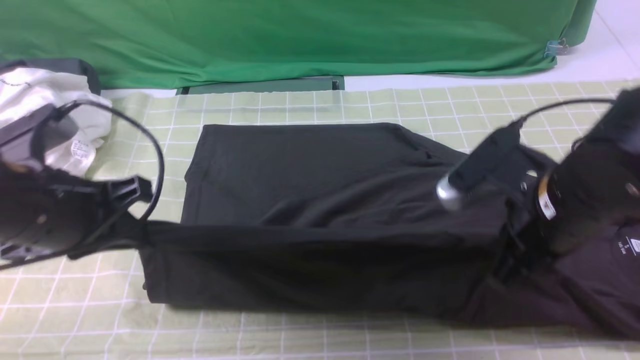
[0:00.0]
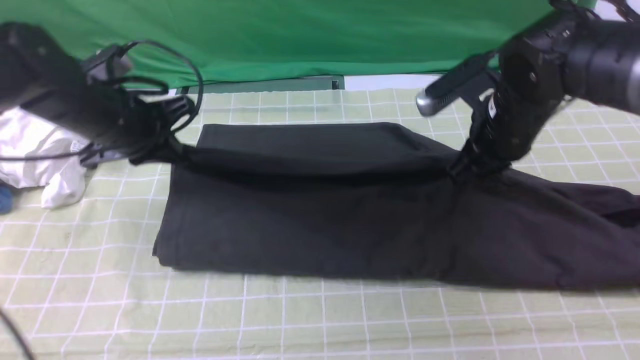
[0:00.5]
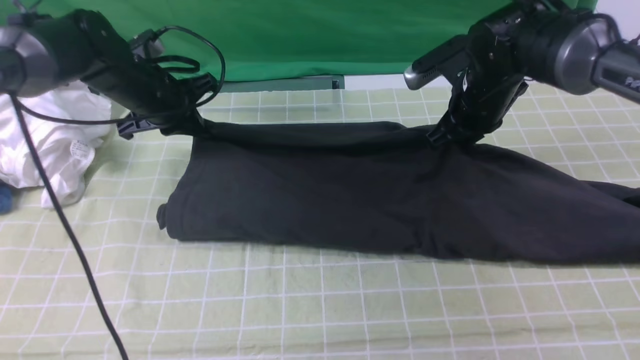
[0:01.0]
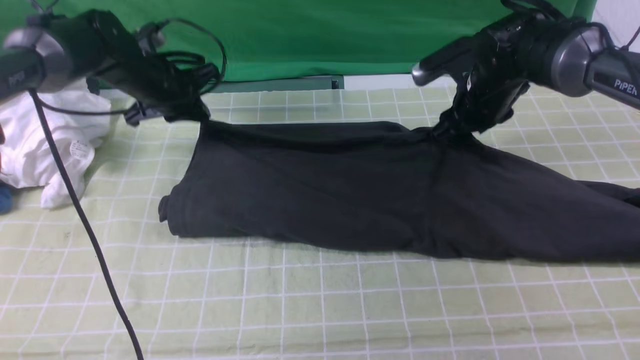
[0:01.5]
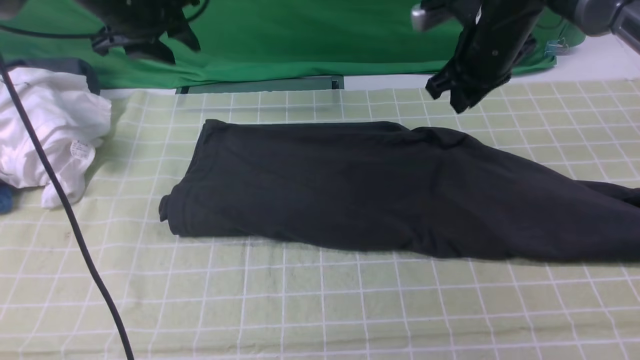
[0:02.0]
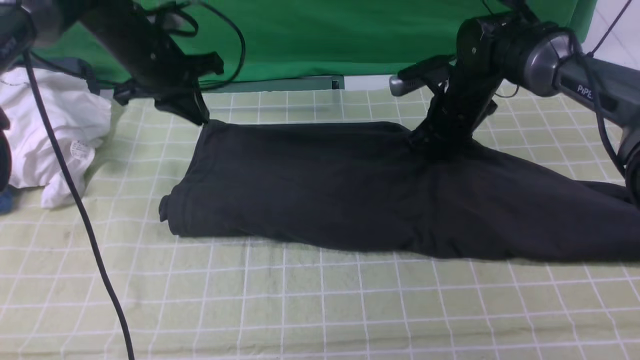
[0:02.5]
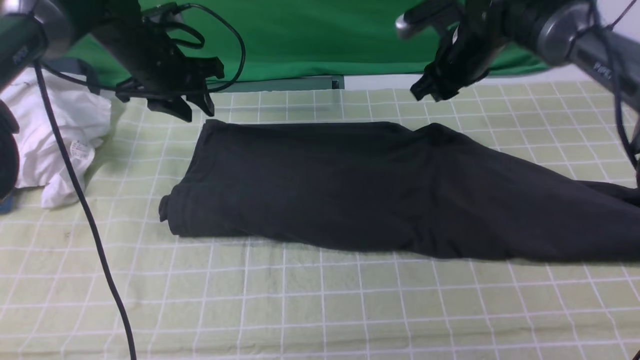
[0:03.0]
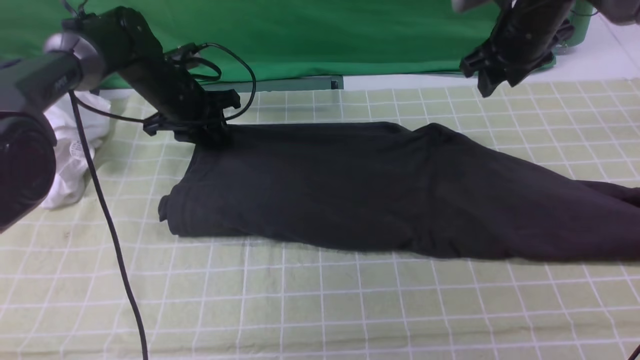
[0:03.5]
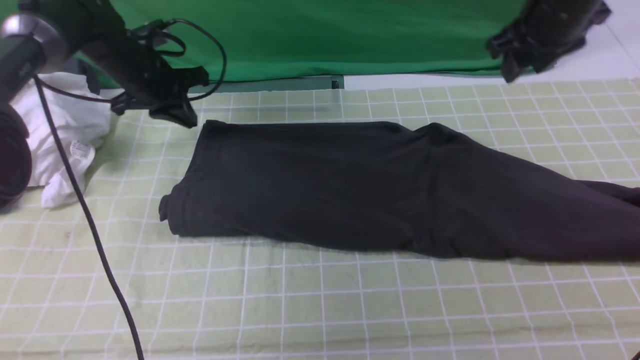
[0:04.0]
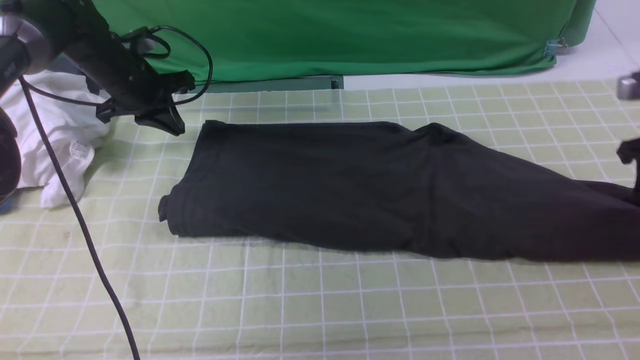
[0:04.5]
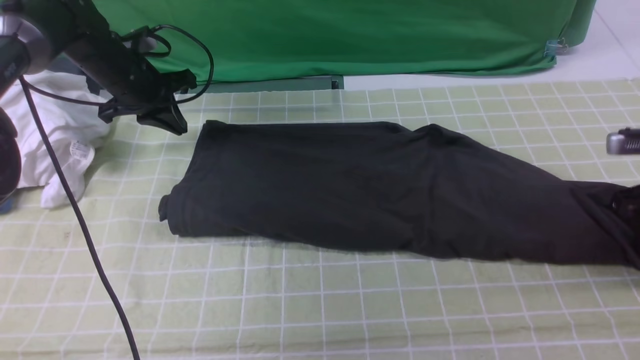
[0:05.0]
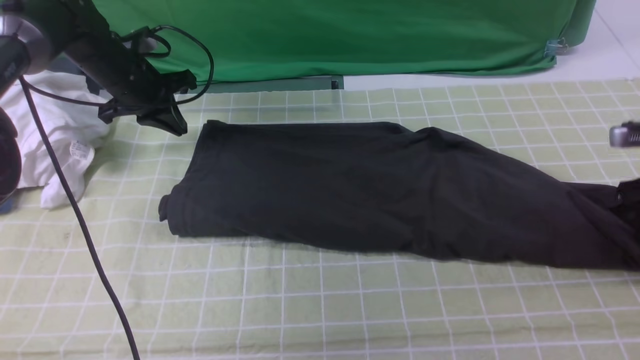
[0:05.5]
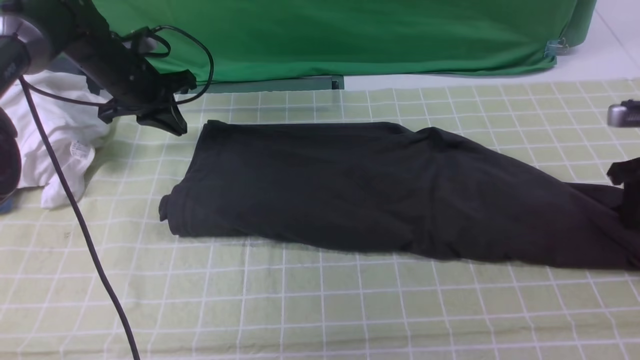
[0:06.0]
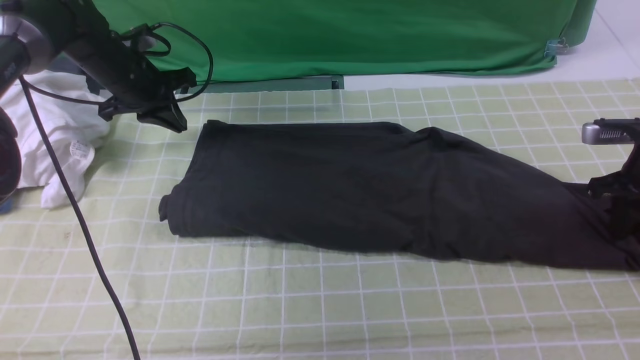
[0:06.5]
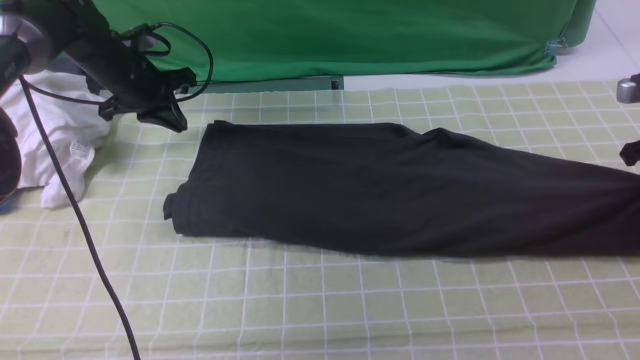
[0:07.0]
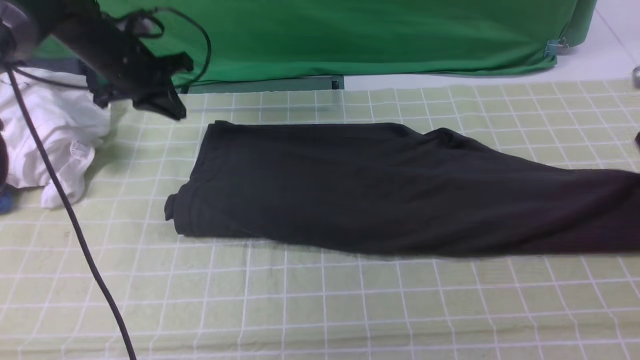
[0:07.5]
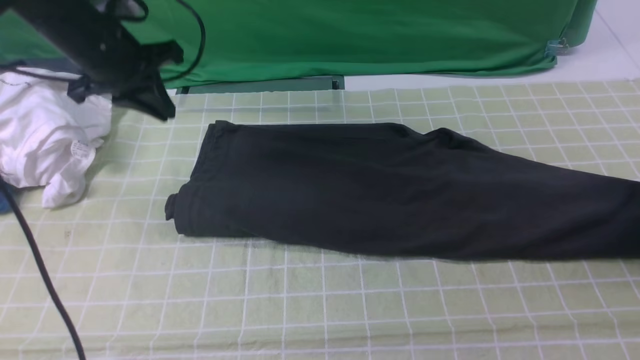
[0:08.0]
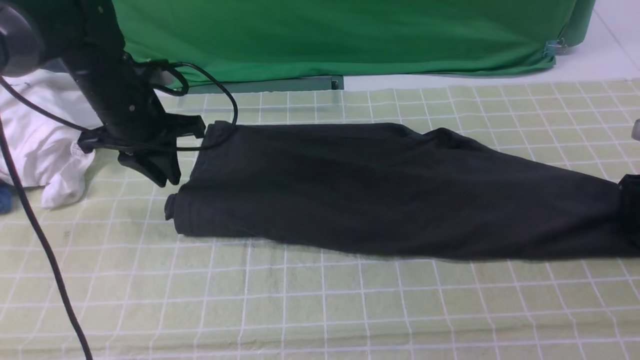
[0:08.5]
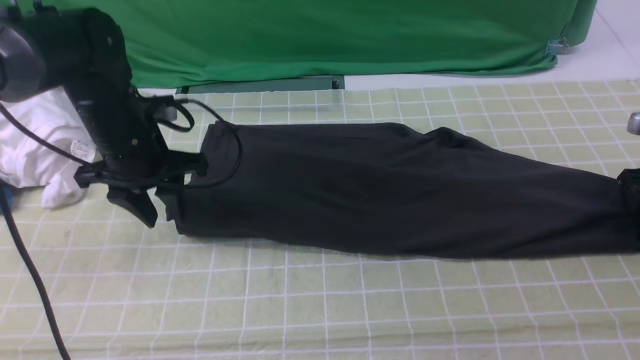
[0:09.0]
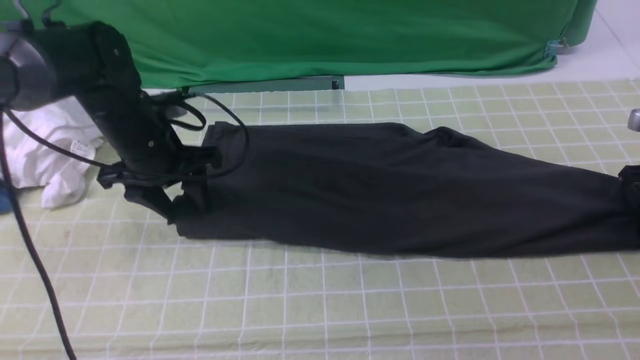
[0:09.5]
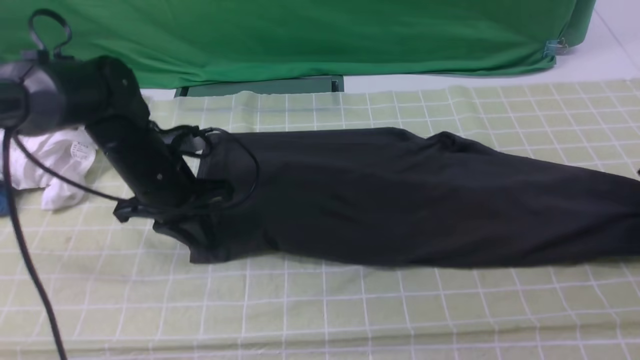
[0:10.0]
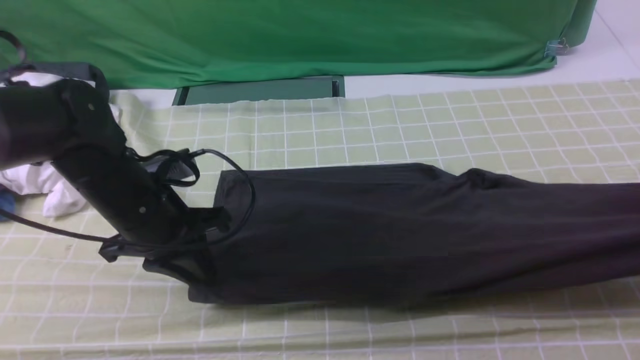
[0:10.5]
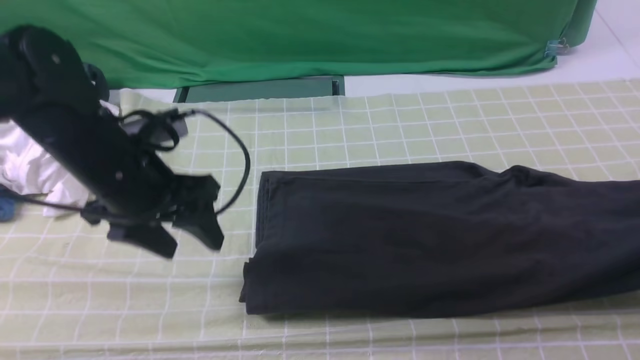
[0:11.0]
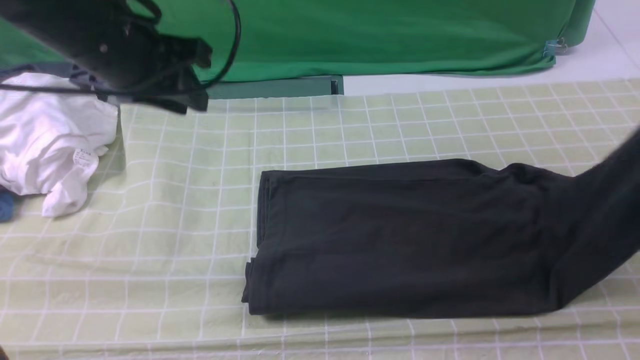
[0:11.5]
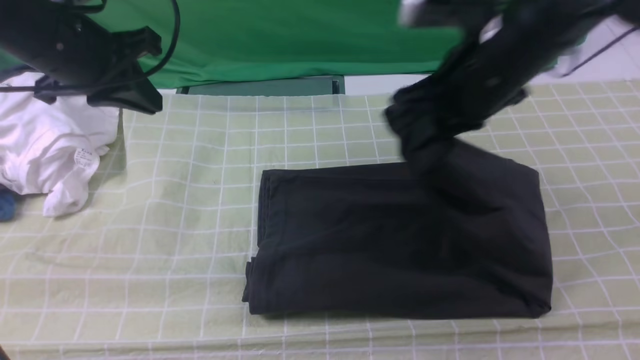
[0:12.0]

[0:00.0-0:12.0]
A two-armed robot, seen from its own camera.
Step, 0:00.0 to 0:01.5: use both arms to drag the lower edge of the fabric forward and fold it over the upper edge.
Step, 0:02.0 to 0:09.0: use the right arm to clamp the right edge of the fabric.
0:00.0 to 0:02.0: The grippers both shift forward by about 25 cm. The left gripper opens its fingers; the right gripper opens, then closes again.
0:02.0 to 0:04.0: The right gripper goes some 10 cm to the right, and opens. The left gripper shifts about 10 cm downward, and closes its fingers.
0:04.0 to 0:06.0: The right gripper is displaced to the right, downward and backward by approximately 20 cm.
0:06.0 to 0:08.0: The left gripper shifts about 10 cm upward and backward. The right gripper closes, then opens again.
0:08.0 to 0:10.0: The right gripper closes. Meanwhile the left gripper is displaced downward, backward and to the right by approximately 15 cm, and opens, then closes once more.
0:10.0 to 0:12.0: The left gripper is displaced upward by about 15 cm, and opens, then closes again; the right gripper shifts some 30 cm to the left.

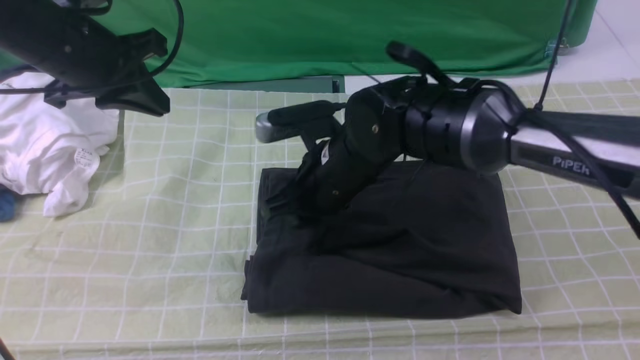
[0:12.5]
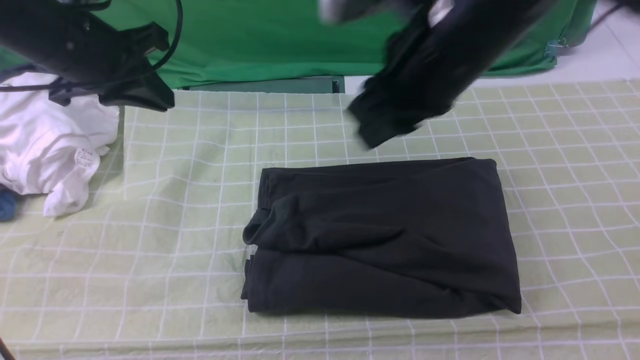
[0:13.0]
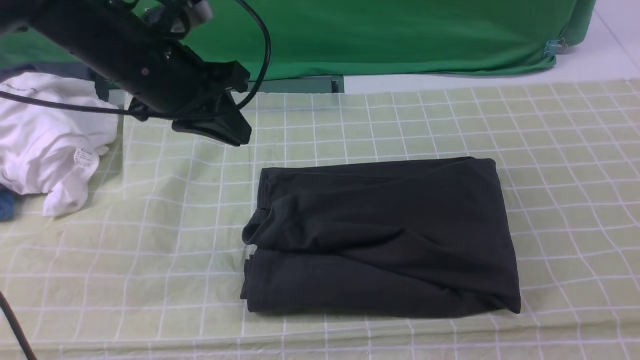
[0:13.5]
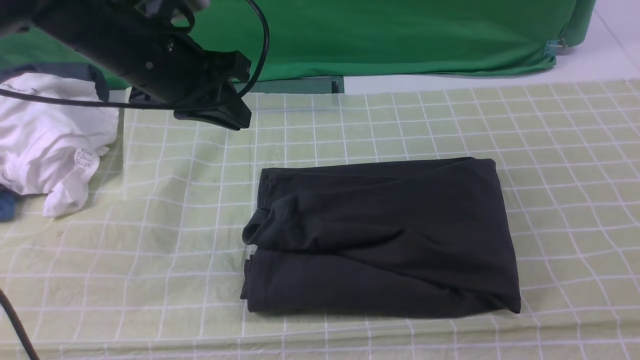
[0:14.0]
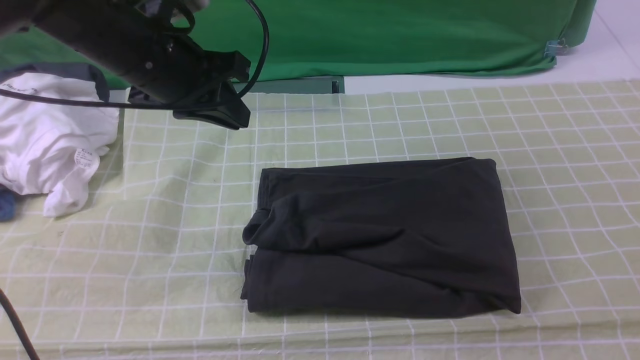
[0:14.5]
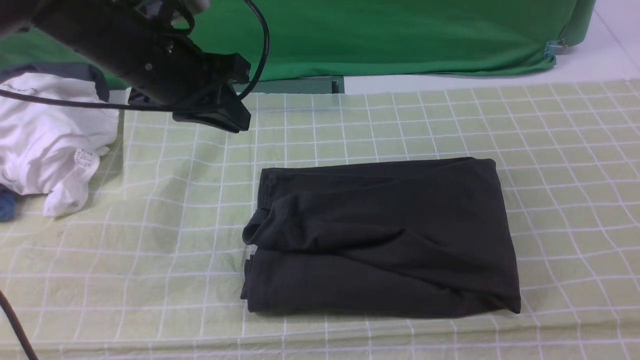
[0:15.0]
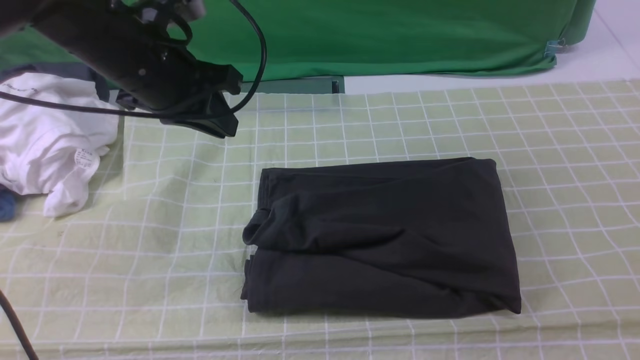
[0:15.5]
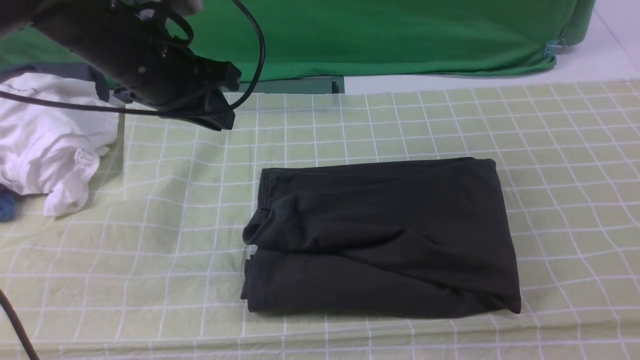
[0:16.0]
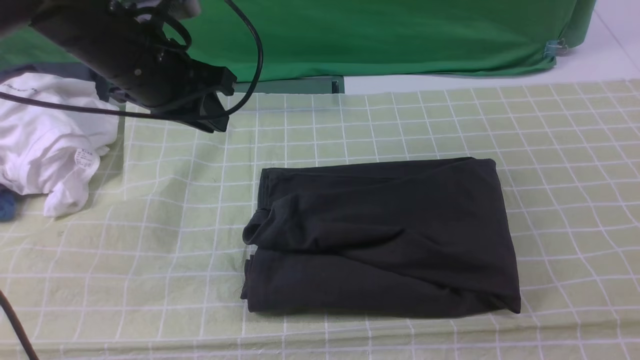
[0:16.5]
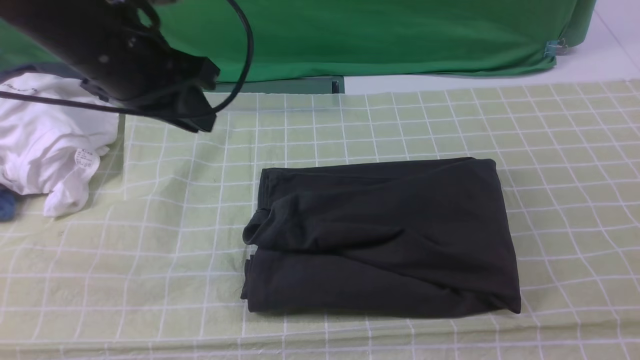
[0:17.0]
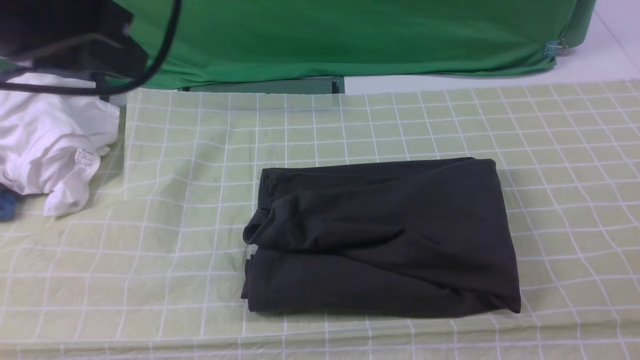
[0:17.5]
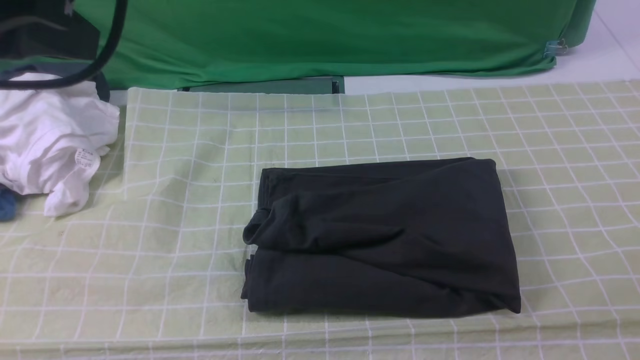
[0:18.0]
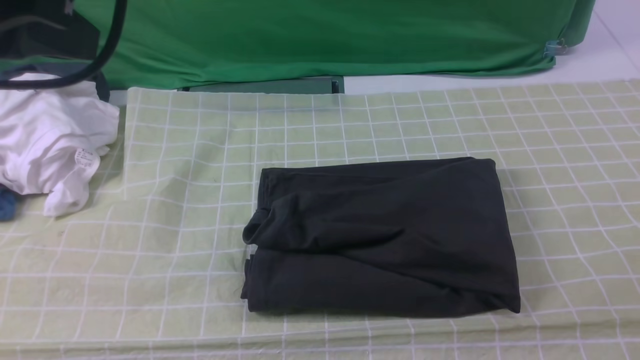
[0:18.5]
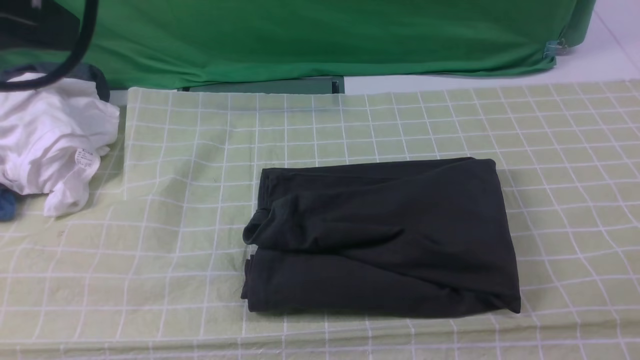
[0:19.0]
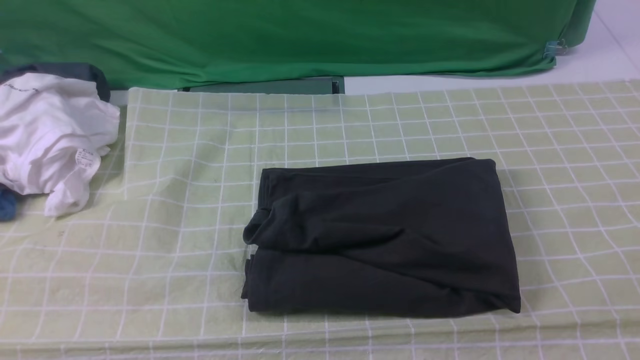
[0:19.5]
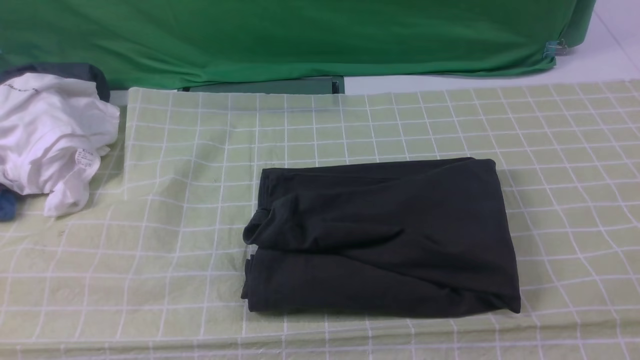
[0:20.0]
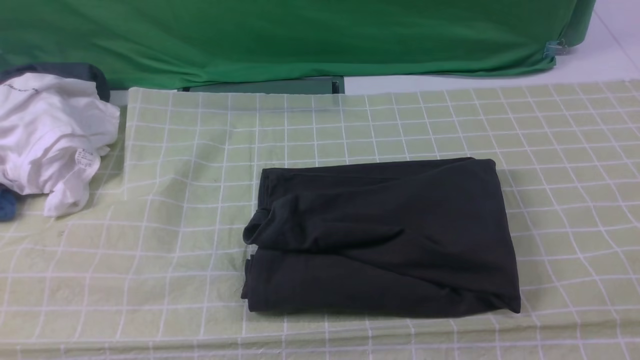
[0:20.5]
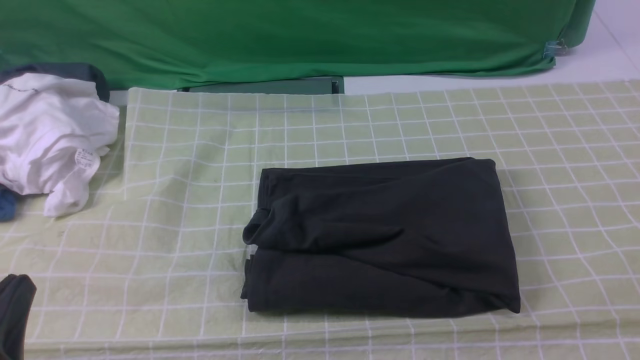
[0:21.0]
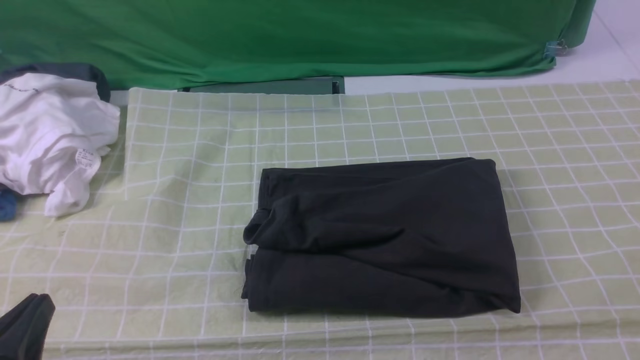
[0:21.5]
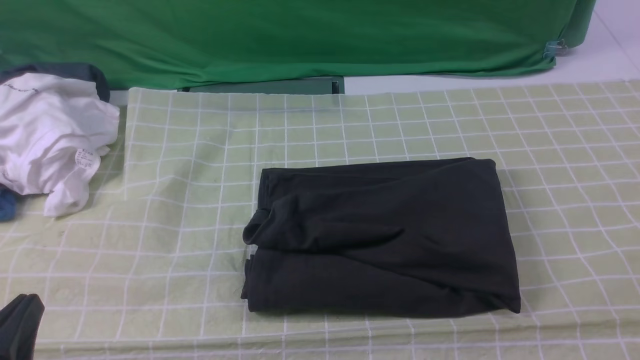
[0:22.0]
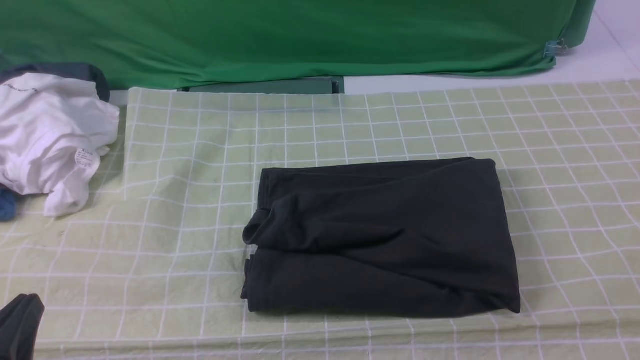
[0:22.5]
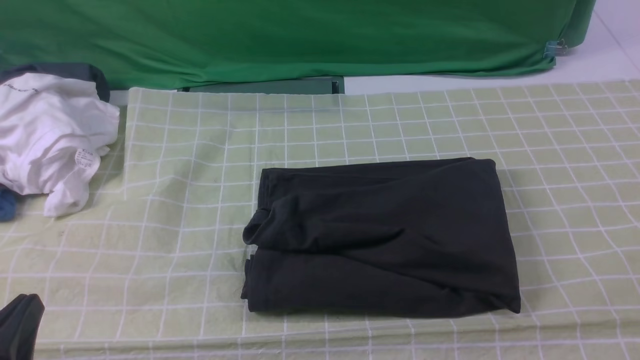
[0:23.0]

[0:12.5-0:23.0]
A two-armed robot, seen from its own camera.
0:12.5 to 0:14.5: The right gripper heads to the right and backward, covering some 40 cm, and closes up; the left gripper goes roughly 10 cm to the right.
0:14.5 to 0:16.5: The right gripper is displaced downward by some 15 cm.
0:16.5 to 0:19.0: The left gripper goes roughly 25 cm backward and upward.
0:19.0 to 0:21.0: The left gripper heads downward and backward, covering roughly 30 cm.
